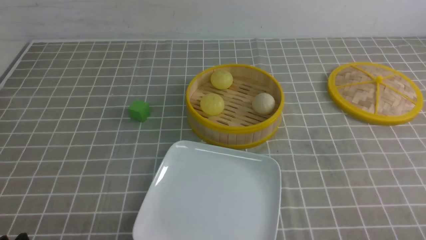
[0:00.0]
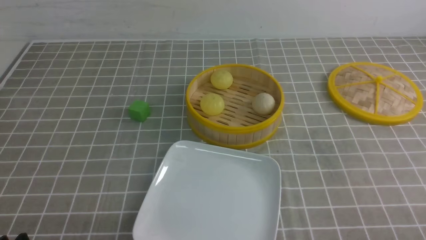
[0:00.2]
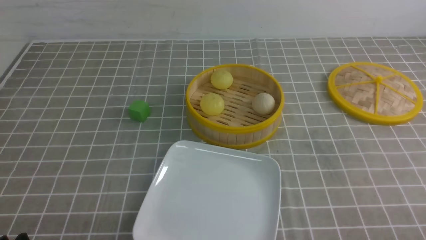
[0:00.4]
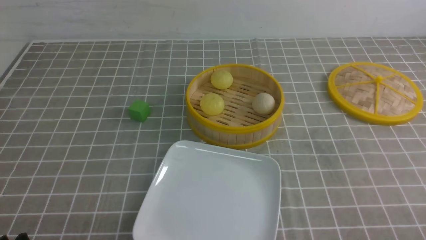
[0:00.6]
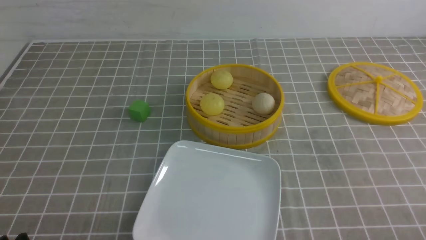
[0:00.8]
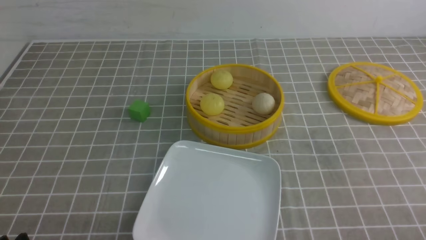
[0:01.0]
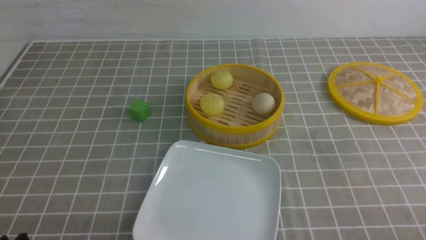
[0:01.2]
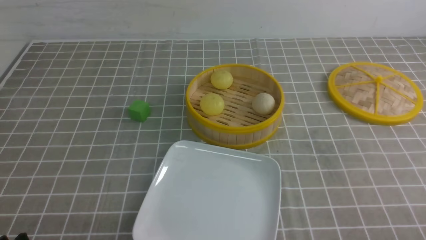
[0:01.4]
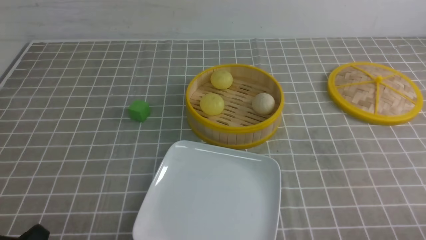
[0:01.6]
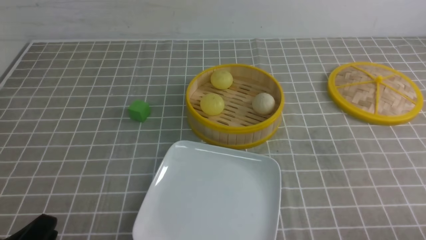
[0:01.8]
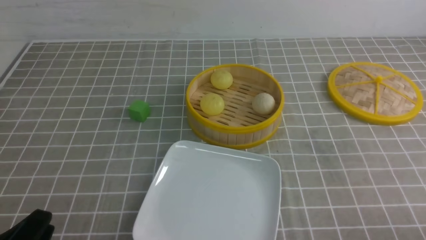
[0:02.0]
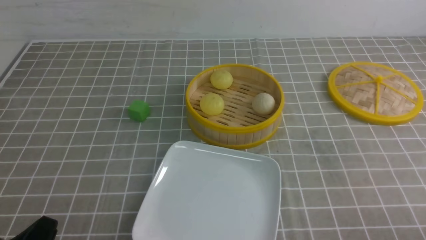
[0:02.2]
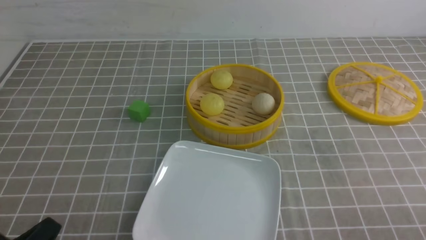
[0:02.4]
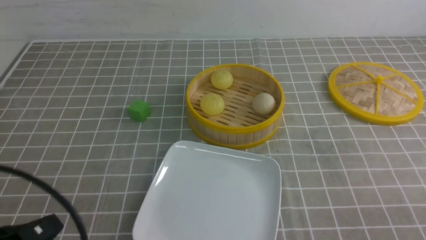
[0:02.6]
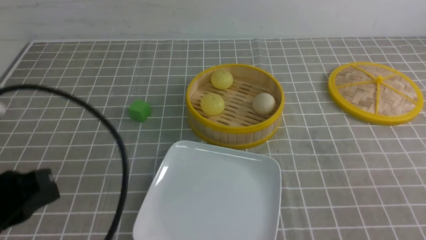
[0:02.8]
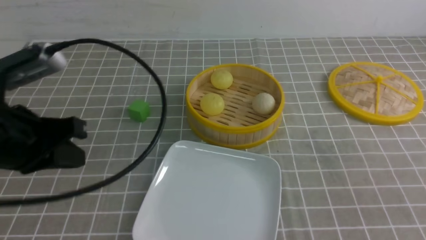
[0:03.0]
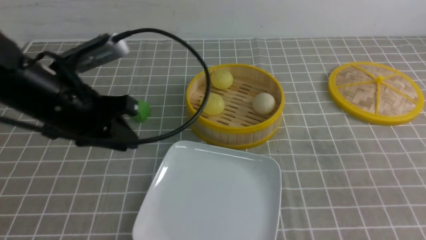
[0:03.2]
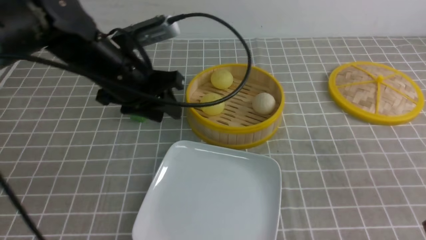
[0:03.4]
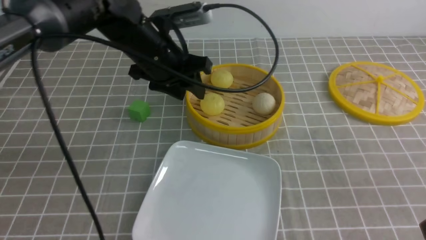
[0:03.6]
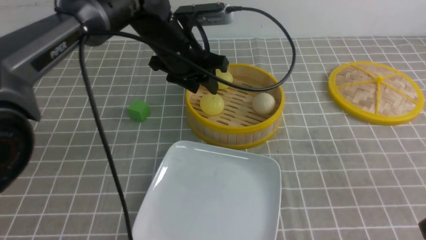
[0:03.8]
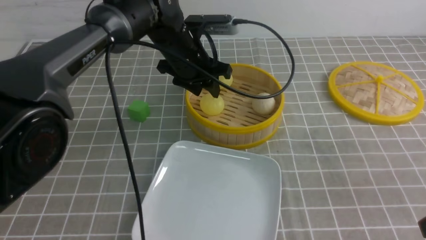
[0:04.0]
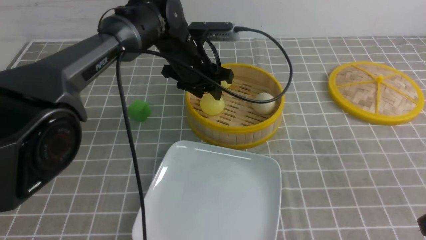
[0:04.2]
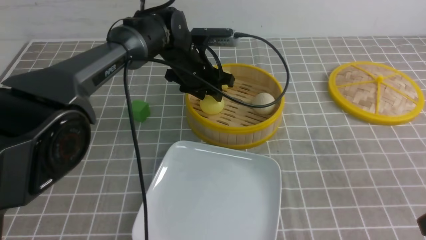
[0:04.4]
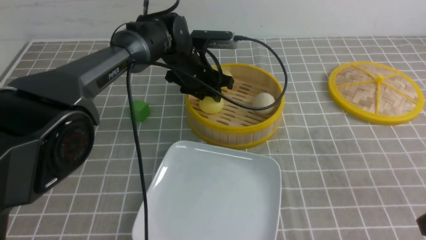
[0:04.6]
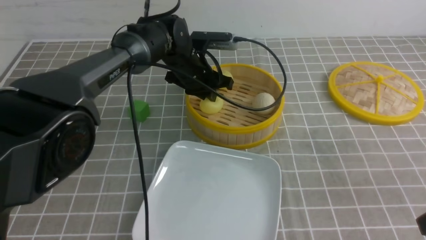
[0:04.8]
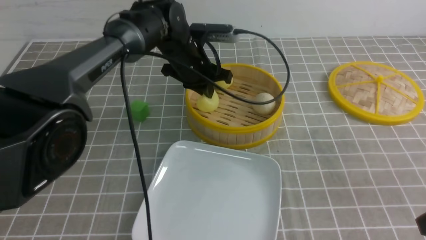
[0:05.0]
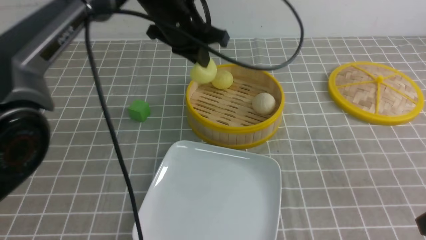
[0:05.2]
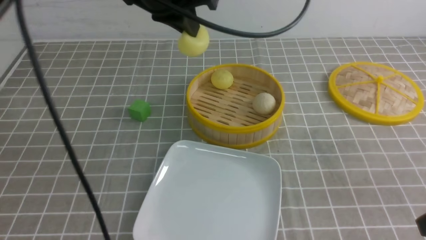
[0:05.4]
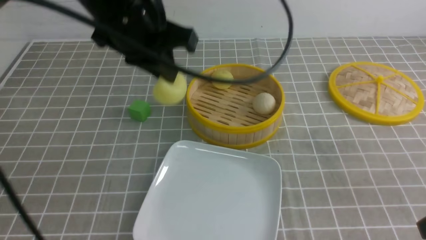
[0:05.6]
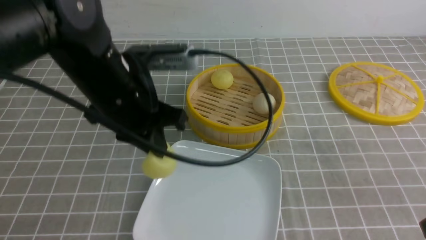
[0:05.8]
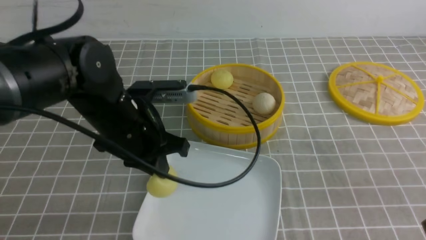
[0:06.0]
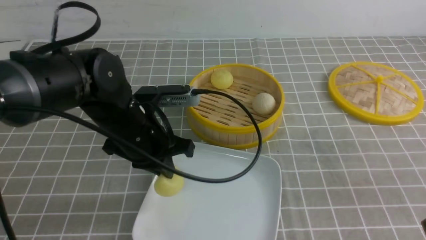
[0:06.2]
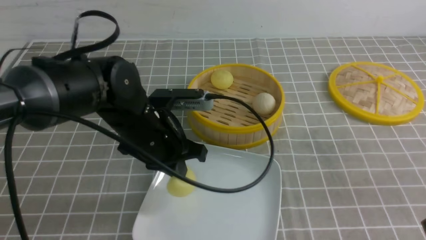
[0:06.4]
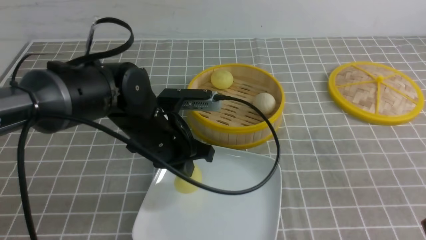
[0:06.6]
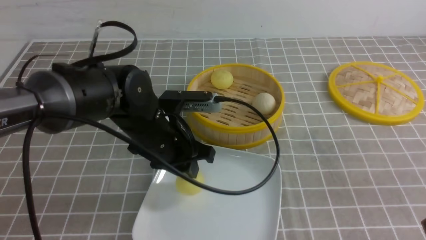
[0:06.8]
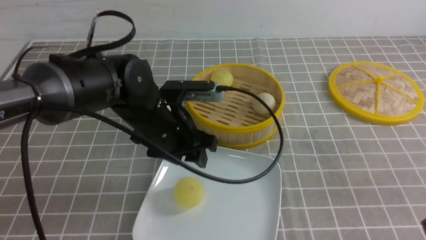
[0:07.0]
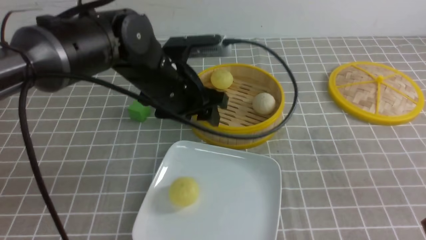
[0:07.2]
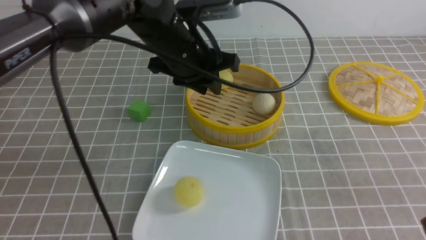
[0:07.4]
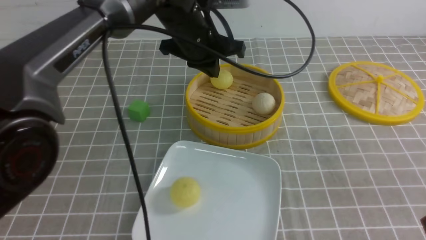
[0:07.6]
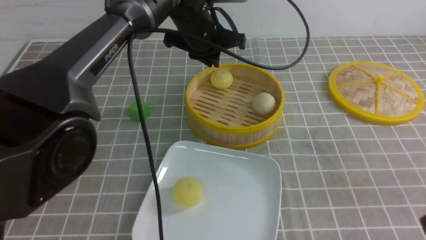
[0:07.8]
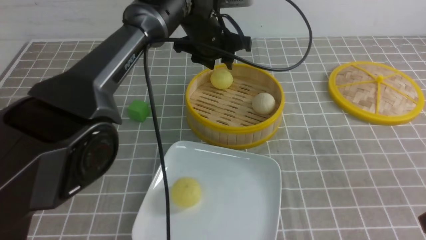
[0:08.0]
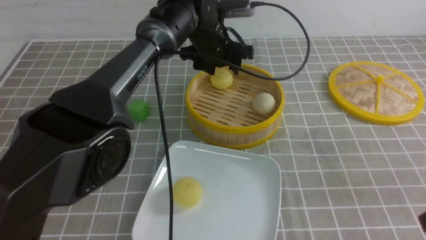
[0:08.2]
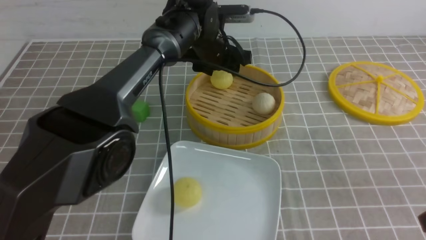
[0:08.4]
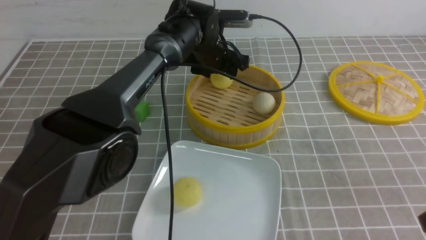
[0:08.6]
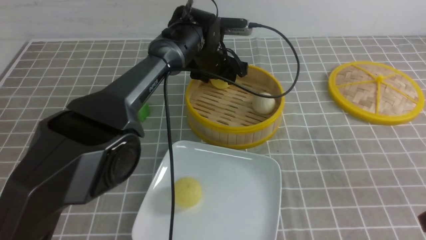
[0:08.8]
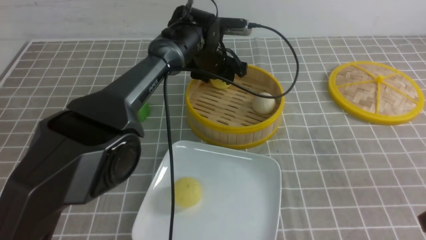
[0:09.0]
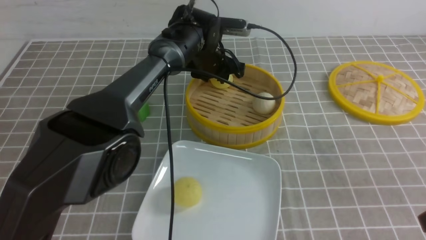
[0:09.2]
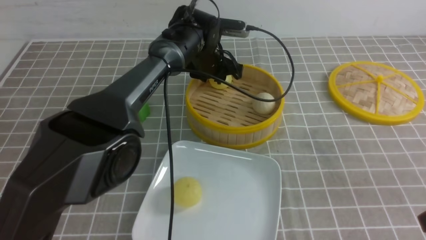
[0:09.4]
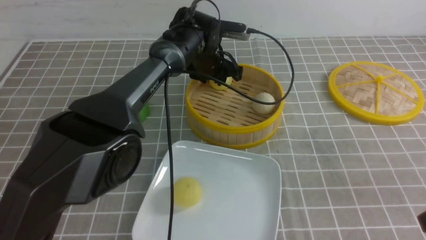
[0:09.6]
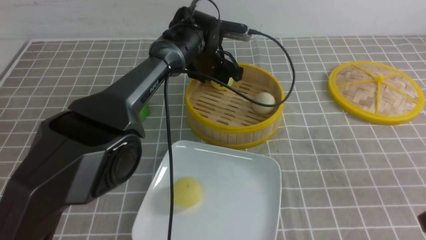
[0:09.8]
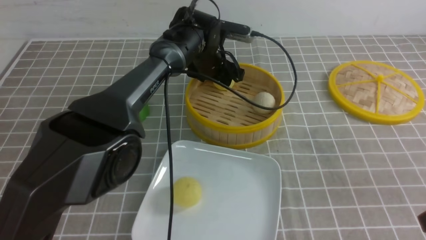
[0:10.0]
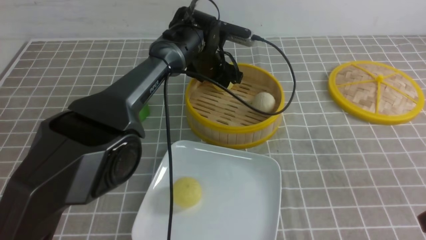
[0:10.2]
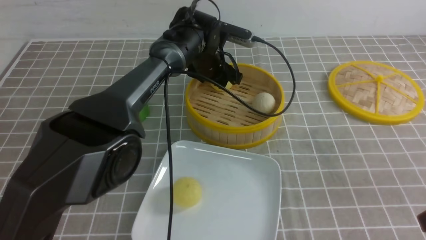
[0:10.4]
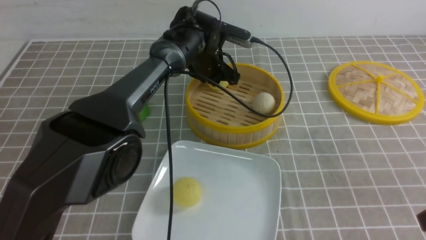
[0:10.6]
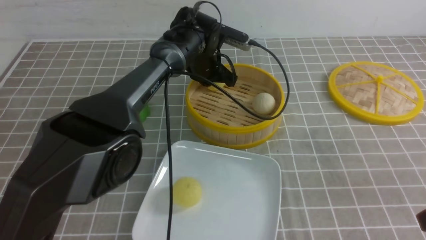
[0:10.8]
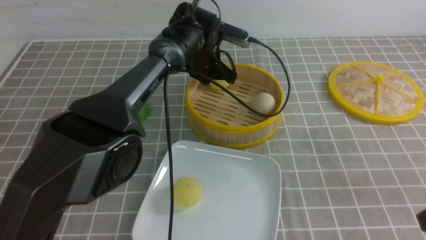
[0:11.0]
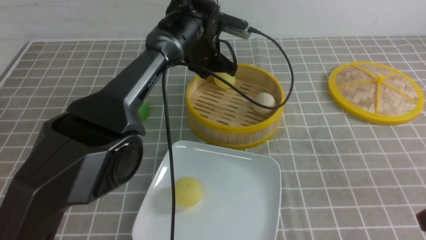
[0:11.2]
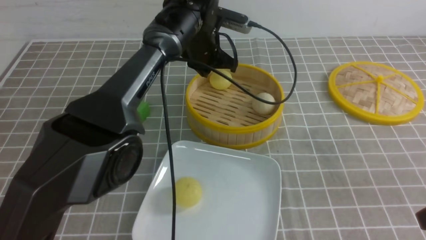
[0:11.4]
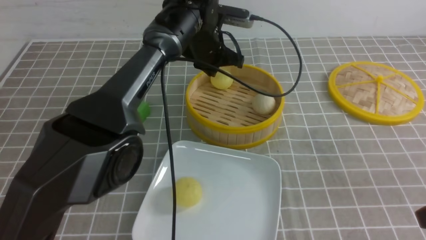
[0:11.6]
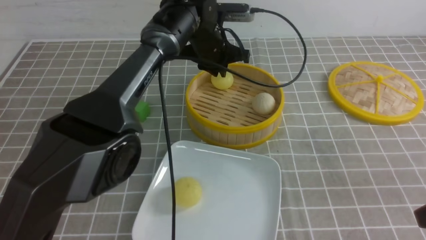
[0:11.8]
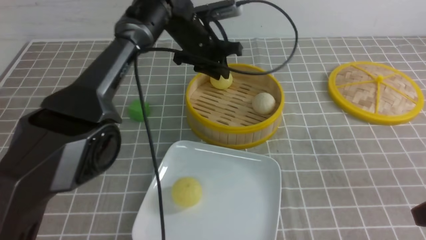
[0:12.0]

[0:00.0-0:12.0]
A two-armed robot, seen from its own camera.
Step, 0:00.0 to 0:05.0: use the left arm to grab the steamed stuffed bun that is closest to it.
Step, 0:05.2 to 0:06.8: use the left arm to put the steamed stuffed bun into the plate.
0:01.6 to 0:03.0: The right gripper shifts roughly 10 cm upward, and closes, while the left gripper heads forward and upward, covering roughly 20 cm.
0:03.0 to 0:04.4: The left gripper heads forward and to the right, covering about 30 cm, and opens up. Meanwhile the right gripper goes about 5 cm forward, and opens its fingers.
0:04.4 to 0:06.0: The right gripper closes its fingers; the left gripper heads backward and to the left, covering some 20 cm, and closes its fingers.
0:06.0 to 0:07.6: The left gripper goes some 15 cm forward, to the right and upward, and opens and closes again.
0:07.6 to 0:09.0: The left gripper shifts some 15 cm downward and forward, and opens its fingers.
0:09.0 to 0:10.4: The grippers move only a little.
0:10.4 to 0:12.0: The left gripper is displaced upward by some 5 cm, and closes its fingers.

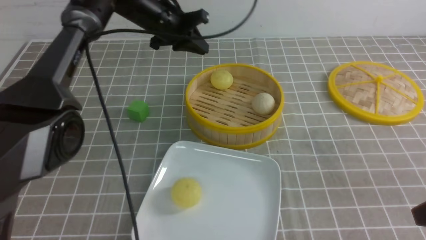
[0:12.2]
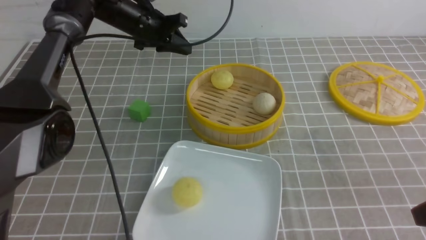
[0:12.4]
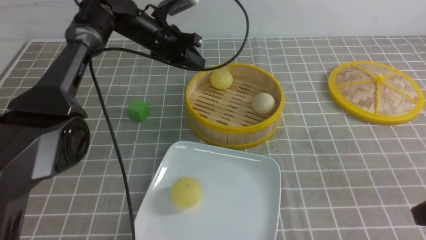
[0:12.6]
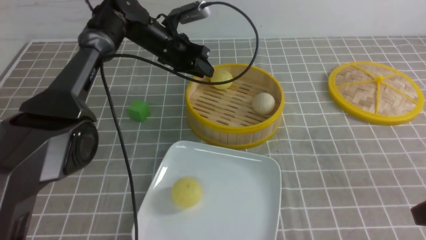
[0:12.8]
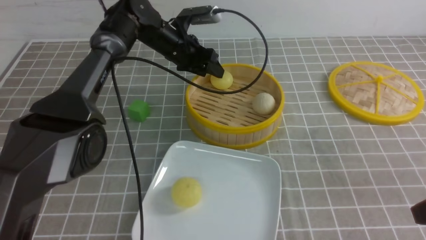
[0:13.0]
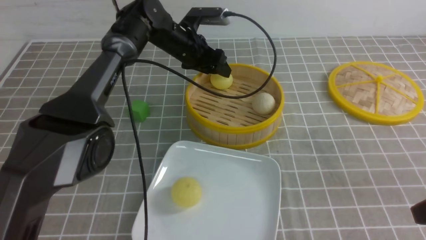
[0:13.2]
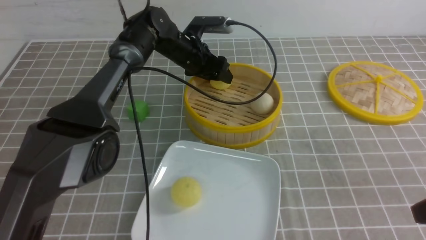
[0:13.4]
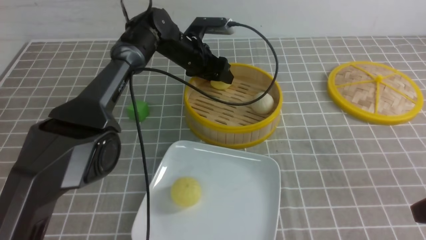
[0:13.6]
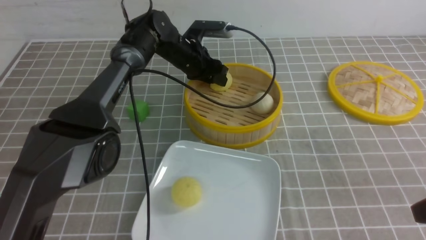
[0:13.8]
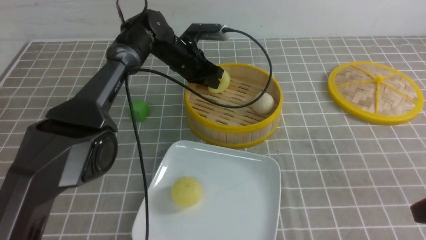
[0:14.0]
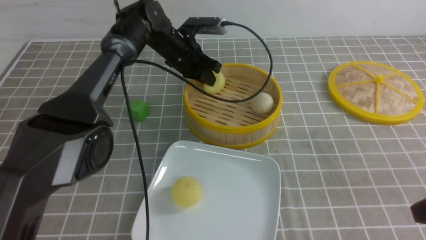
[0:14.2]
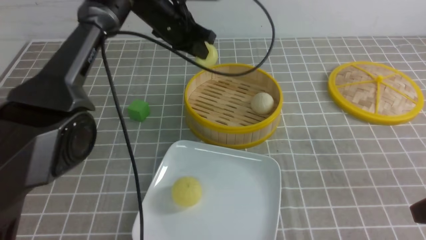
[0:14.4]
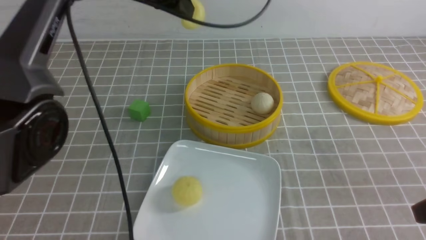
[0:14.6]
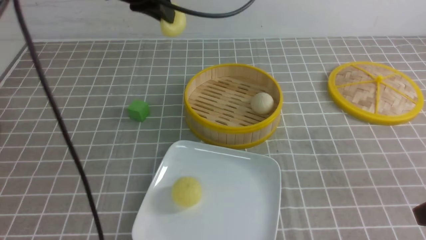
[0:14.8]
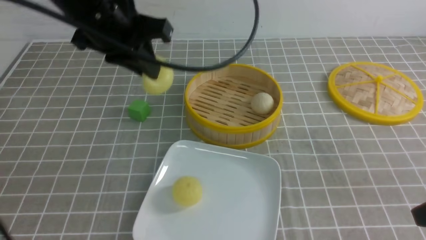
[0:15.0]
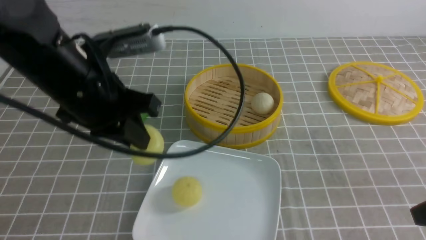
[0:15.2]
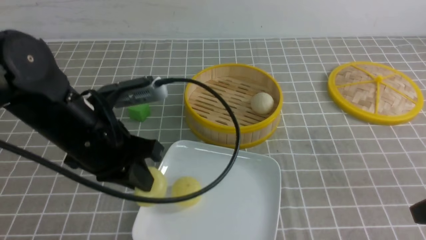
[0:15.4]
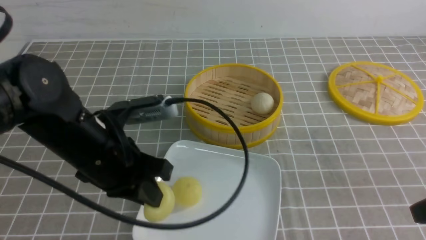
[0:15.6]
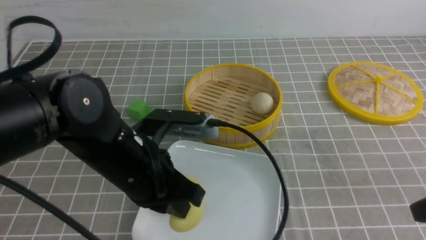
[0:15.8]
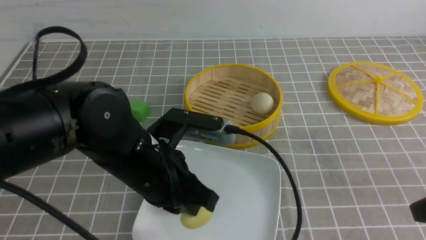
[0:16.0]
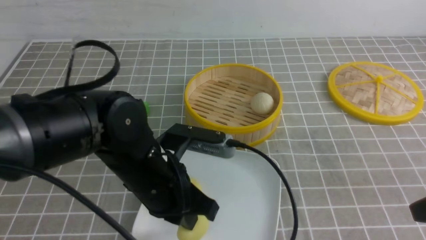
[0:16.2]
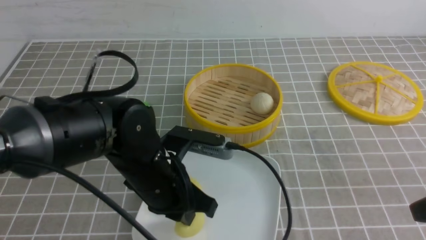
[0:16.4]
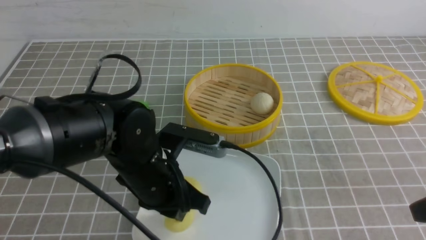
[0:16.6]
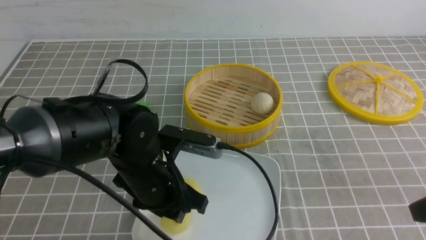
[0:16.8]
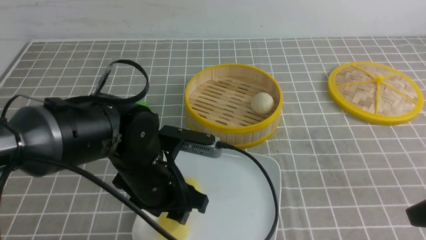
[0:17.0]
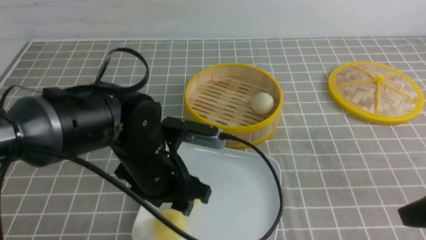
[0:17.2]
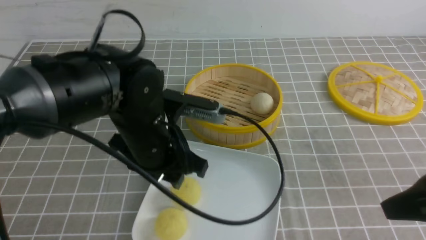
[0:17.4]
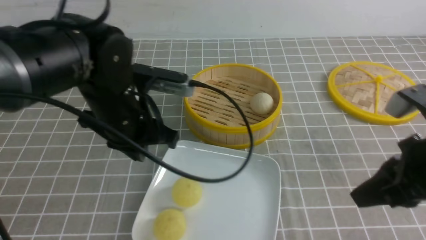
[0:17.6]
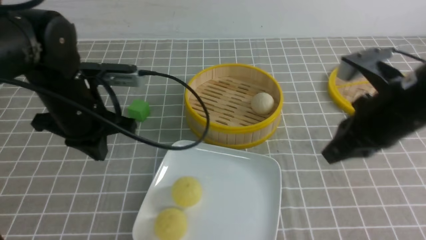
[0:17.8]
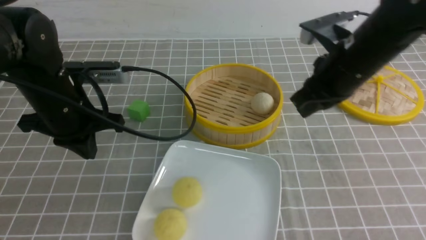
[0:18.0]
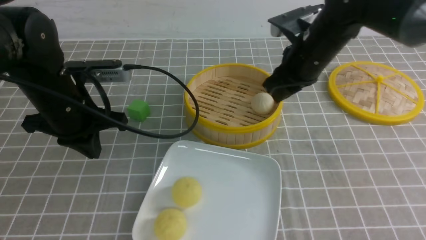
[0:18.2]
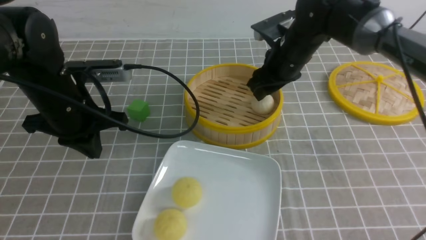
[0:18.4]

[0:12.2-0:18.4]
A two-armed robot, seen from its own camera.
Step, 0:12.2 to 0:14.2: use the left arm to grab the steamed stuffed bun that is closest to it.
Step, 0:14.4 to 0:17.0: use the left arm to put the steamed stuffed bun into the plate.
0:12.2 to 0:13.8: The left gripper goes approximately 10 cm downward, and opens up.
0:13.8 to 0:15.4: The right gripper closes its fingers; the left gripper heads backward, covering roughly 30 cm, and closes up.
0:15.4 to 0:16.8: The left gripper goes about 10 cm downward and to the right, and opens up.
0:16.8 to 0:18.4: The left gripper is displaced to the left, forward and upward by about 15 cm, and closes. The right gripper shifts roughly 35 cm forward and to the left, and opens.
